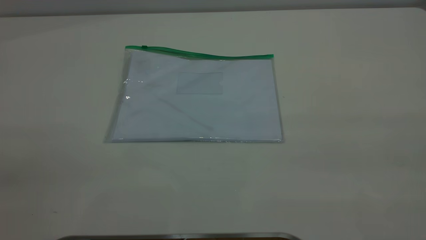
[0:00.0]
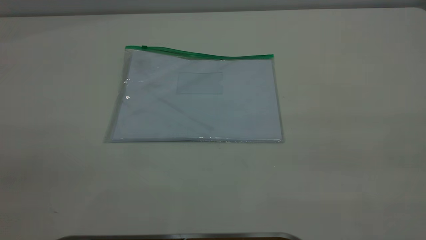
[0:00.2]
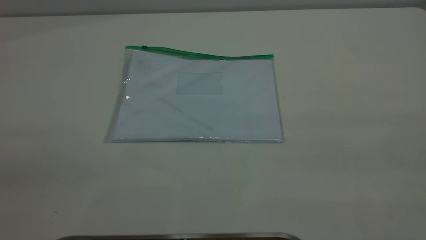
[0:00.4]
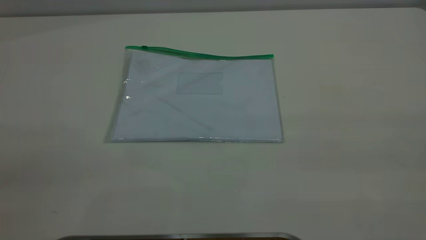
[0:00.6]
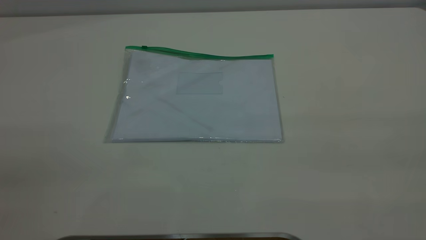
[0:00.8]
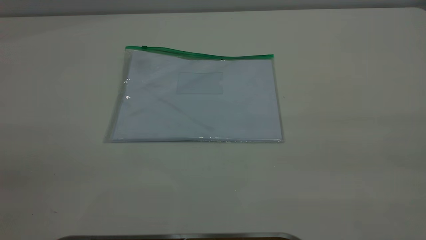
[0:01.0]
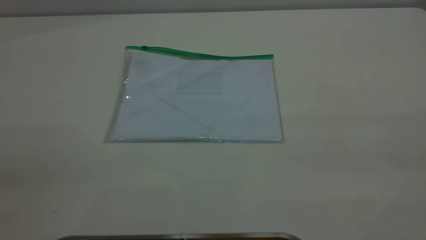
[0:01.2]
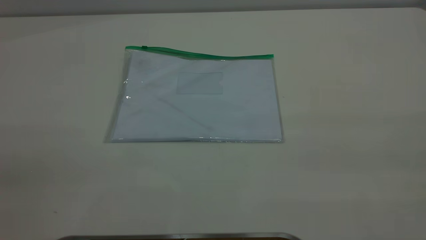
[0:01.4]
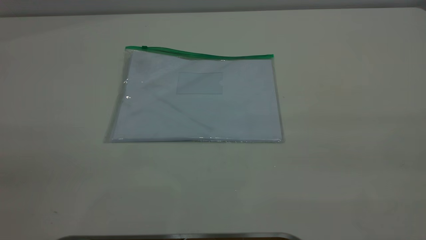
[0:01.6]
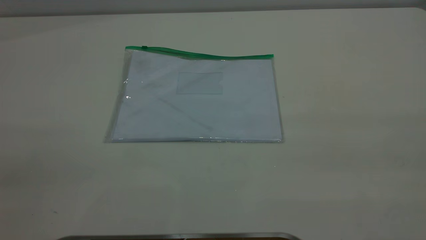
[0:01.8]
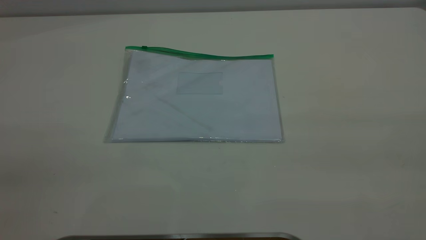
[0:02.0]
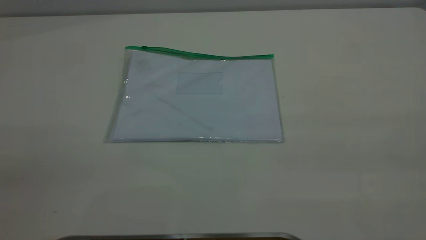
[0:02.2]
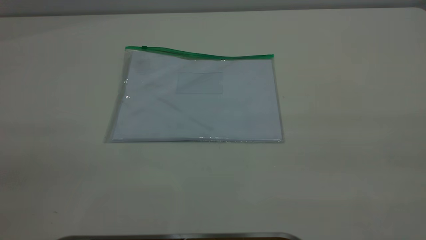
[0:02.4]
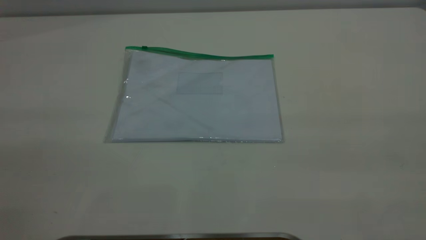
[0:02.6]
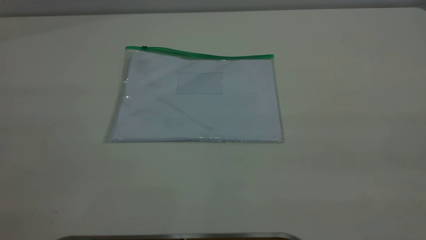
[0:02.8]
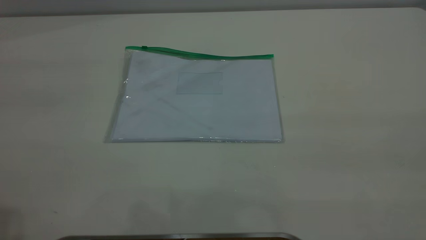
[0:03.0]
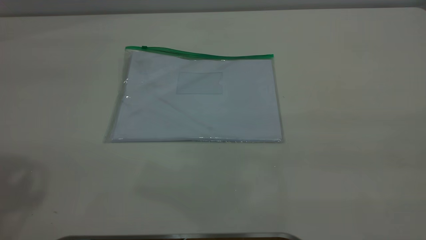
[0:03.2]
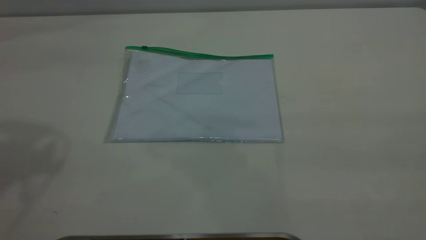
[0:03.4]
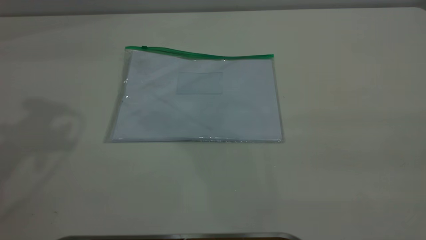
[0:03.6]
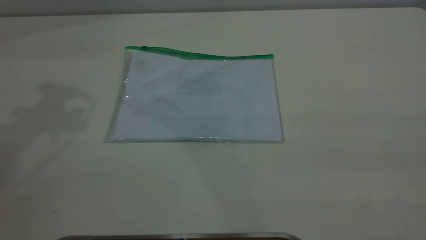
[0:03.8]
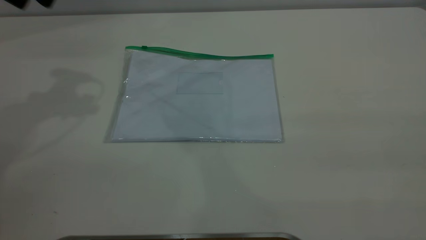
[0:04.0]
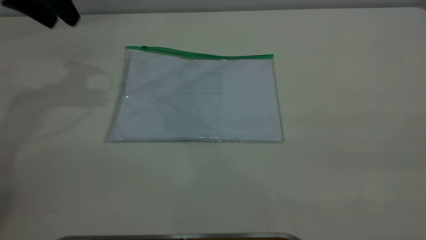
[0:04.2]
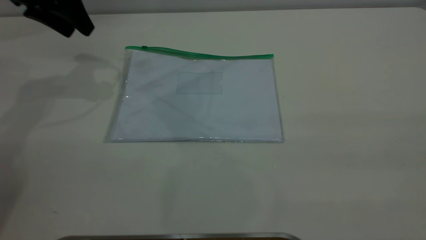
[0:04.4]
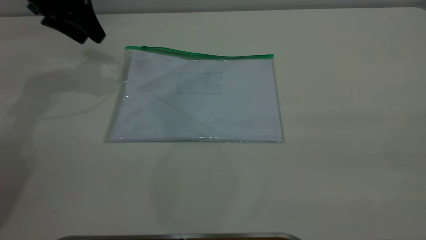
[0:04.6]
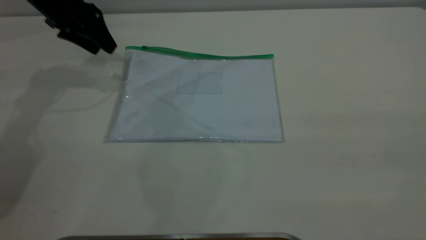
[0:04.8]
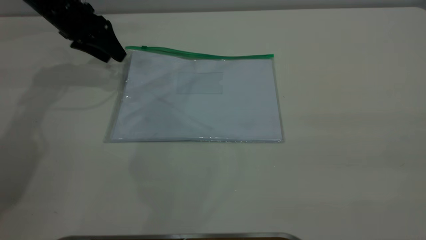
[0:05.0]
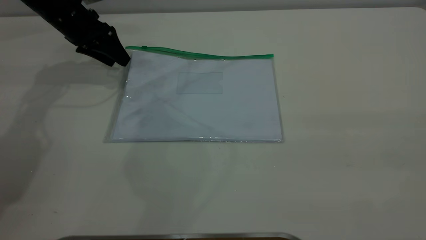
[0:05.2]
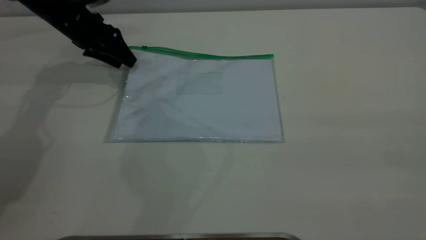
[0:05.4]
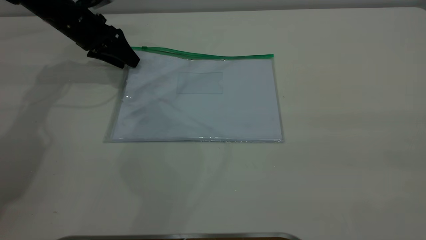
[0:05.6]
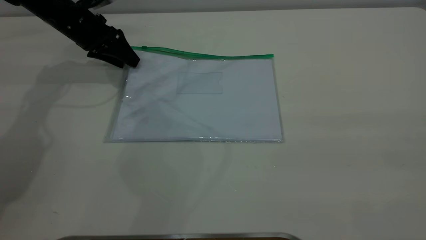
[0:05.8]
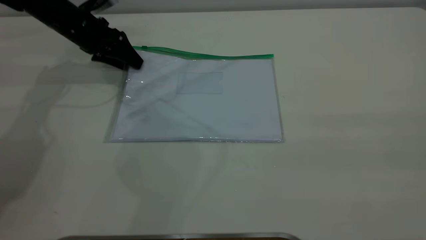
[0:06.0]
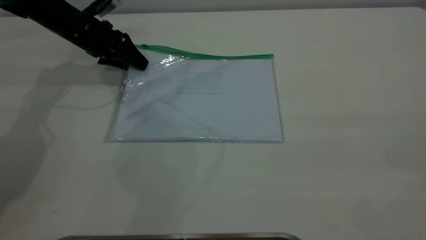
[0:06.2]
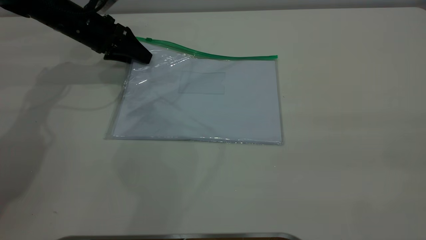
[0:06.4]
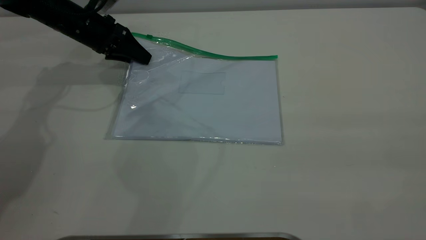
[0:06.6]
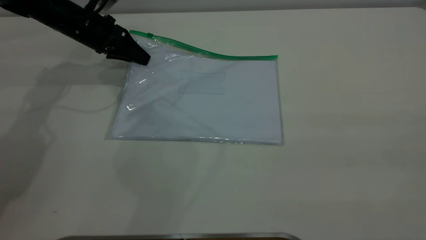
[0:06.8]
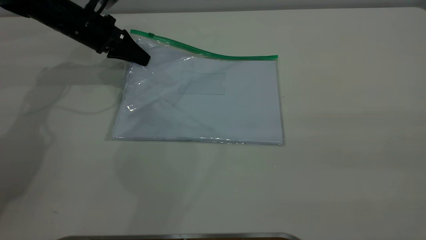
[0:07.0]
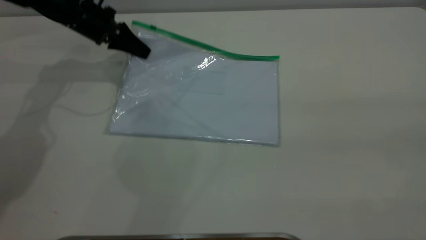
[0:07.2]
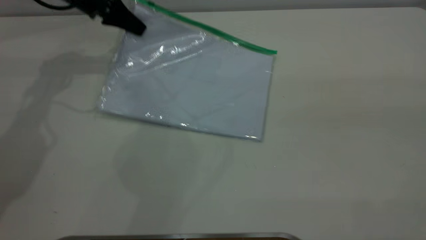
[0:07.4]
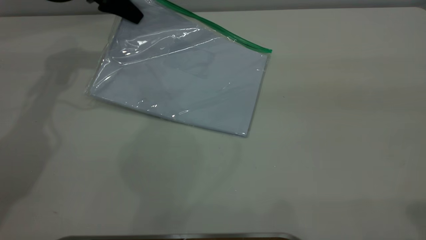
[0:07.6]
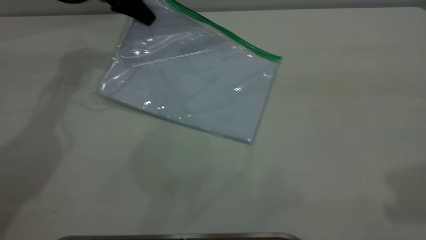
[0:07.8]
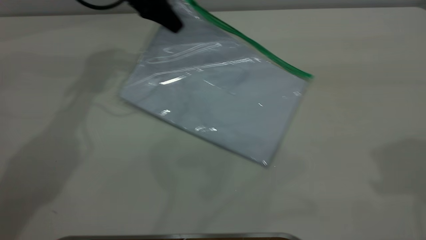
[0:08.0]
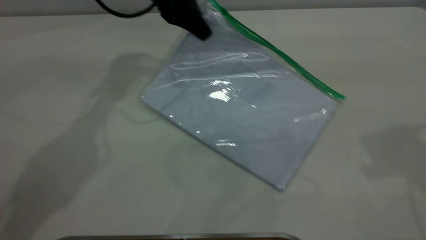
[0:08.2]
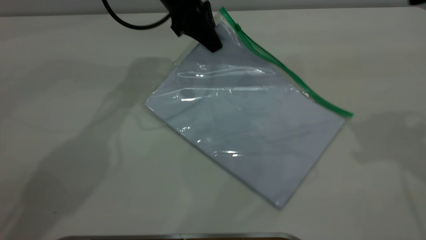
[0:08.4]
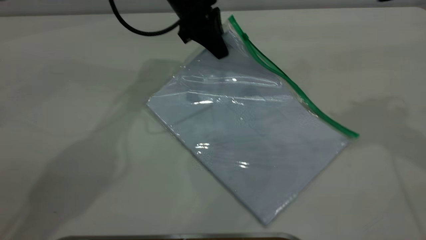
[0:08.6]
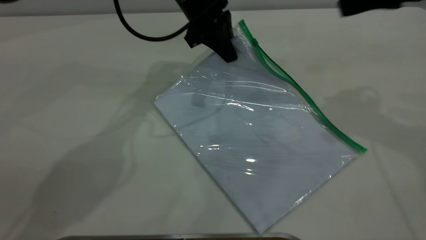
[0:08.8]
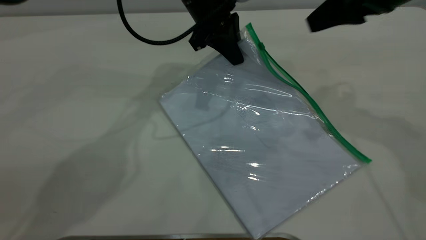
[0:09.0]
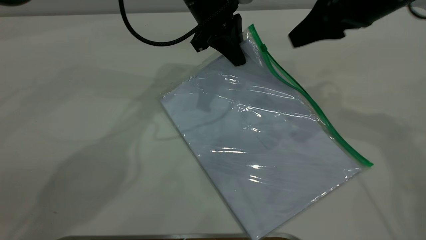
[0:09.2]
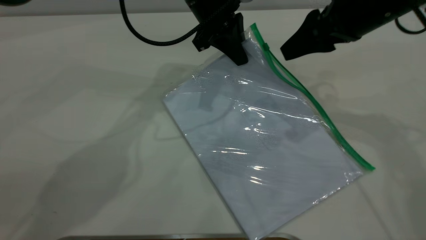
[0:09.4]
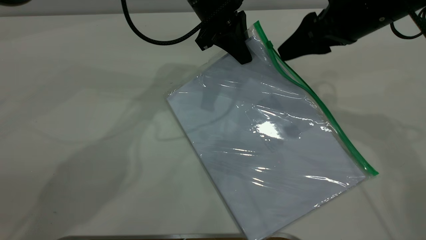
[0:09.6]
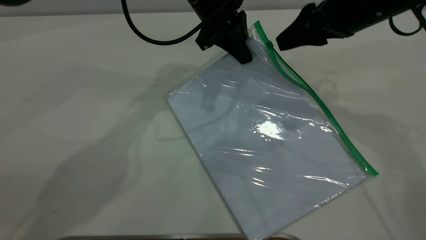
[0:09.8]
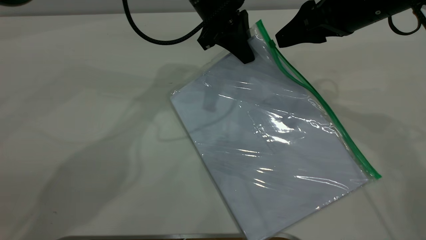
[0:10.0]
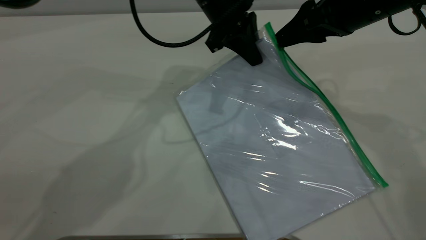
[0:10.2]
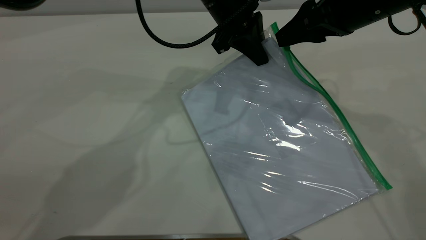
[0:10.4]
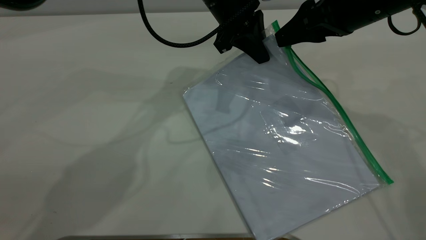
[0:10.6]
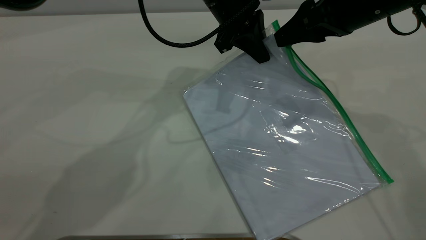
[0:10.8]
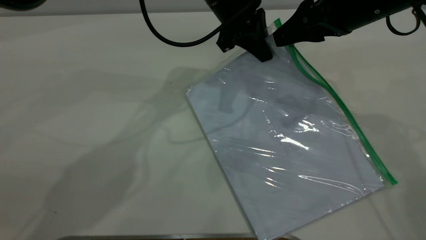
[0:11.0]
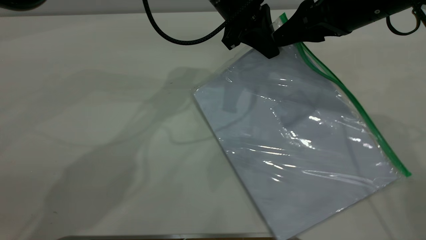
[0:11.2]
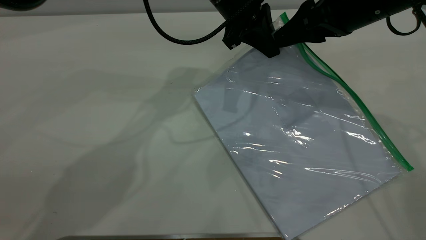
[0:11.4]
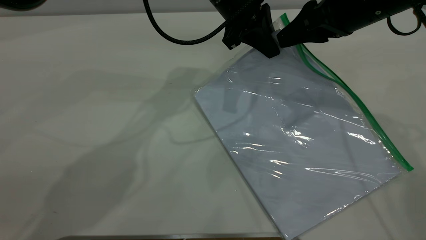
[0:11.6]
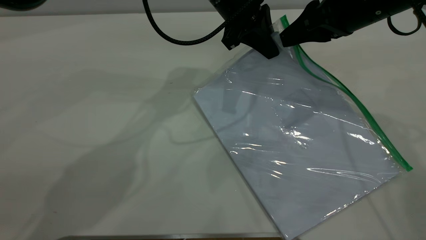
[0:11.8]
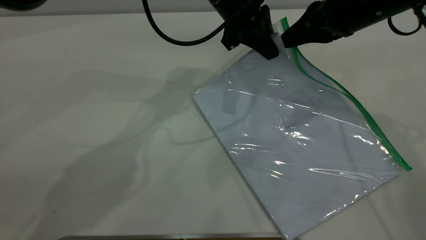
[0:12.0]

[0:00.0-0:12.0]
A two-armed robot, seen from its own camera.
Step, 0:00.0 to 0:07.0: Pick up the transparent plastic bag with the left gripper.
0:00.0 to 0:01.6: Neither gripper changes place.
0:03.0 to 0:04.4: The left gripper goes about 35 cm forward and downward.
0:04.4 to 0:06.0: The left gripper shifts some 15 cm downward.
0:06.0 to 0:07.6: The left gripper heads upward, covering roughly 10 cm, and closes up; the right gripper heads forward, covering approximately 15 cm.
0:07.6 to 0:09.0: The right gripper moves forward and downward, about 30 cm; the left gripper moves to the right, about 20 cm.
0:09.0 to 0:10.4: The grippers make only small movements.
0:10.4 to 0:12.0: The right gripper closes up.

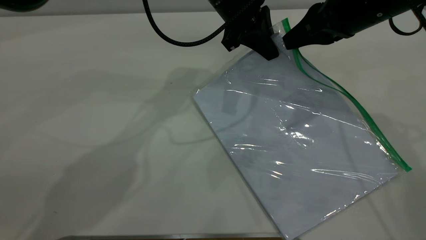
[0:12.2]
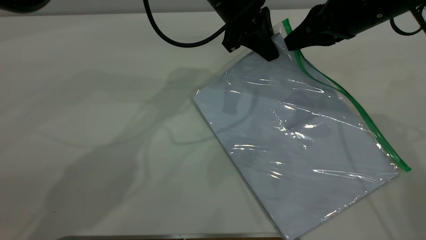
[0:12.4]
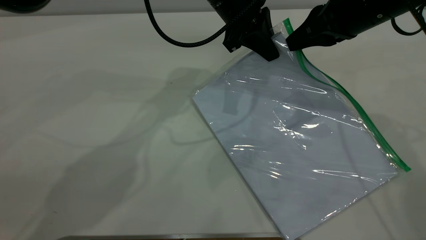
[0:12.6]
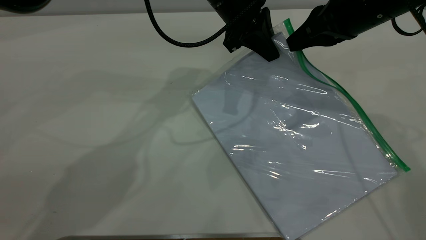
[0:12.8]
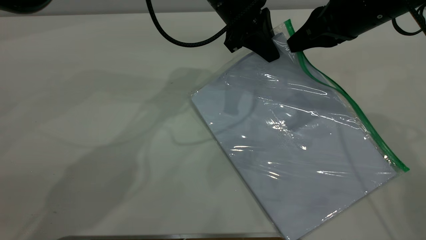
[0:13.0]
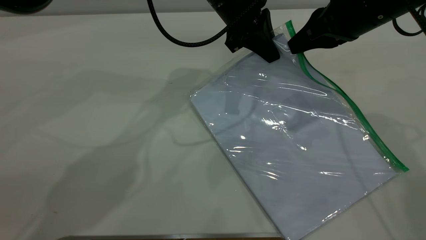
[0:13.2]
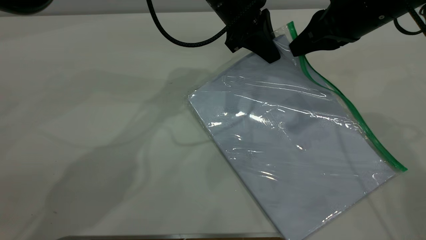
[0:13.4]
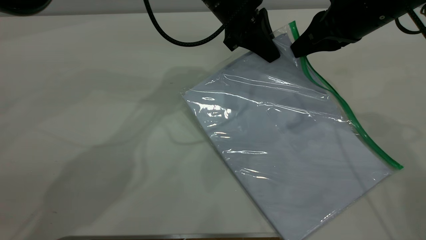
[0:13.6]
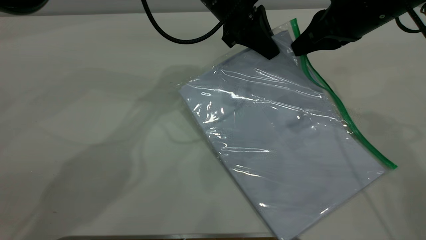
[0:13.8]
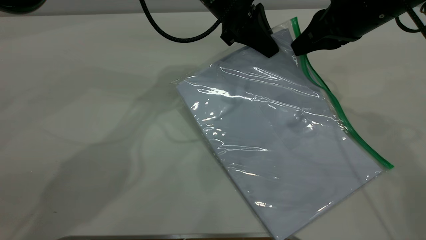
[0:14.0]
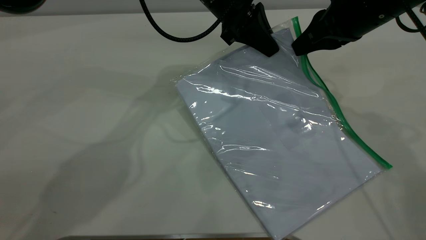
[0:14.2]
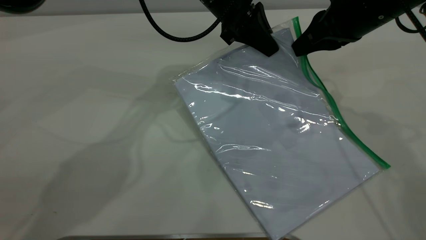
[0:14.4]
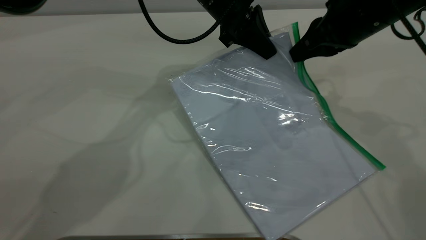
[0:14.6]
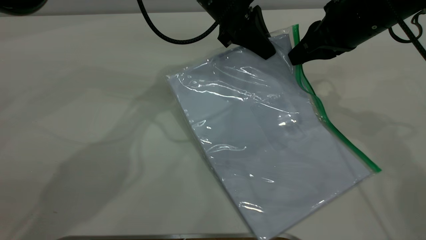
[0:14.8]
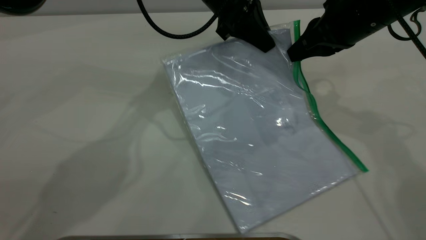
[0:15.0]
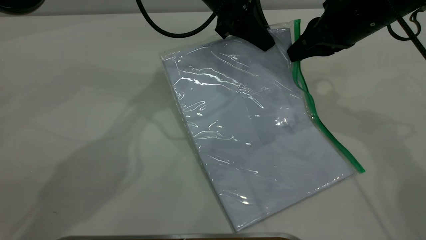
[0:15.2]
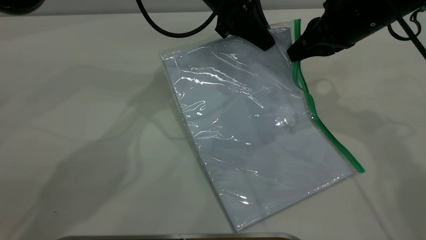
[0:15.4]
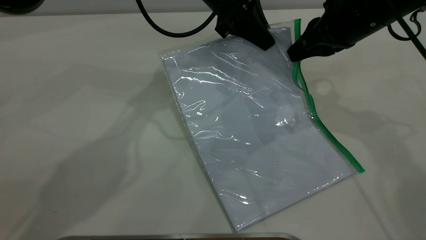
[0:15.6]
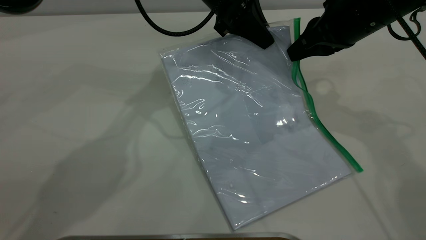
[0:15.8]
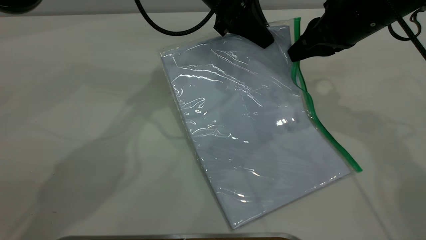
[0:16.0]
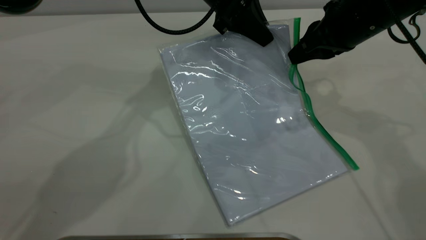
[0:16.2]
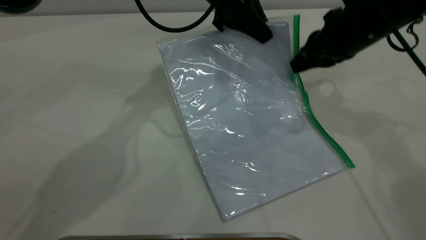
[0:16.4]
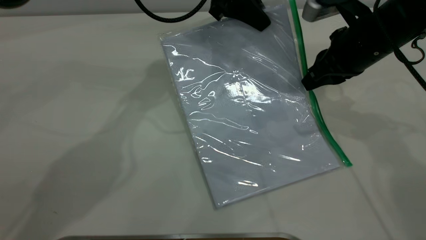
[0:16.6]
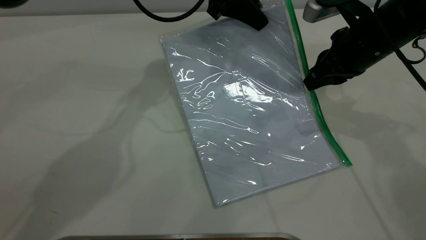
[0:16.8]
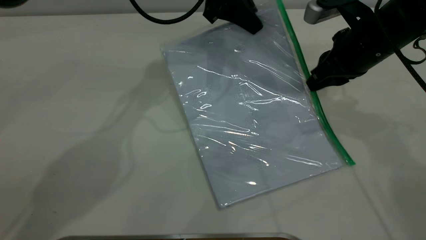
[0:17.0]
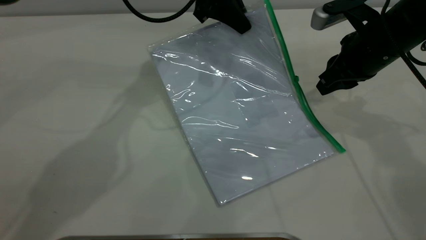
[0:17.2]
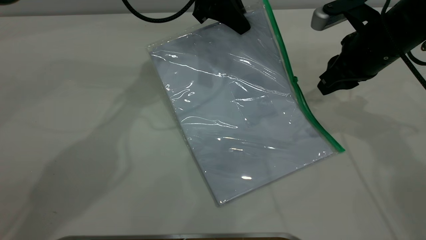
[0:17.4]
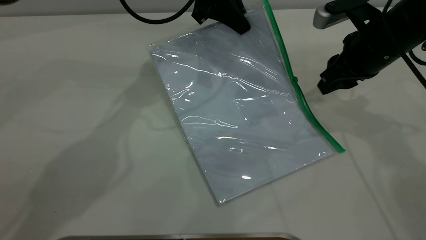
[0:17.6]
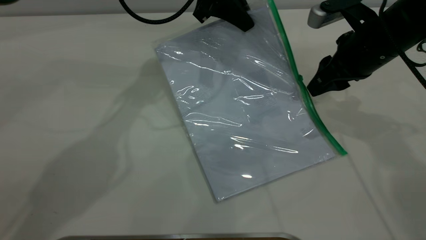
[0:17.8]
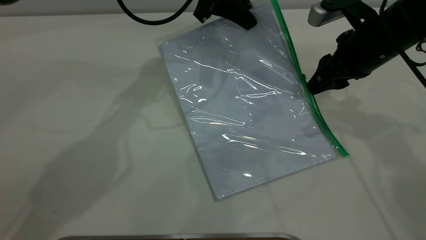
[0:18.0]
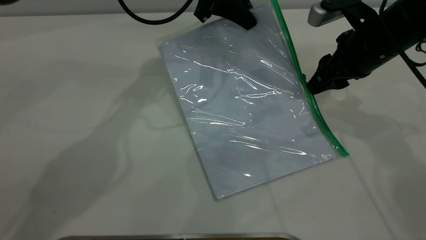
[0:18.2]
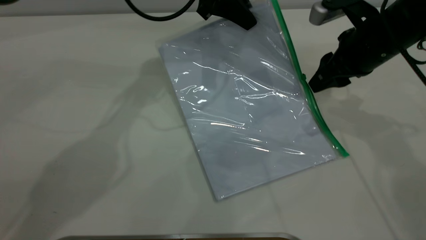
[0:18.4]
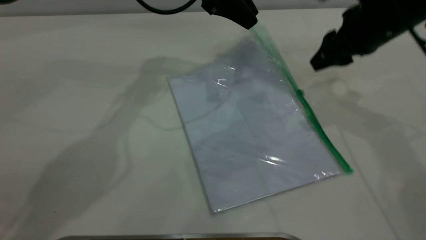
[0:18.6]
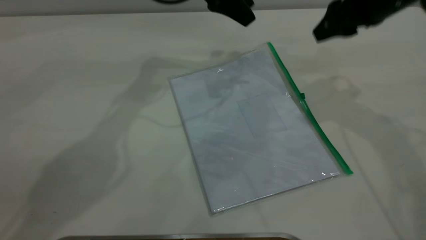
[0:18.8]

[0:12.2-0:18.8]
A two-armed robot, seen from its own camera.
Step, 0:12.2 to 0:17.2: Pulling up the zipper on the transparent plastic bag with the right gripper to close it.
Step, 0:17.6 to 0:18.6: Place the transparent plastic bag.
0:12.2 to 0:15.4: The grippers make only small movements.
0:15.4 to 0:17.2: There are only small adjustments of the grippers.
0:17.2 to 0:18.8: The left gripper opens up. Meanwhile the right gripper heads upward, covering some 10 cm, and opens up.
